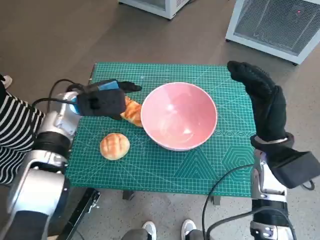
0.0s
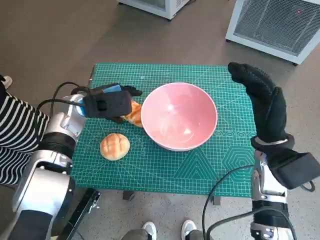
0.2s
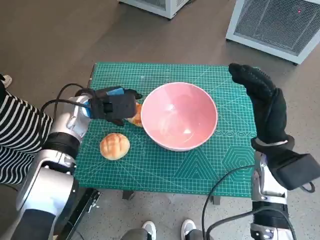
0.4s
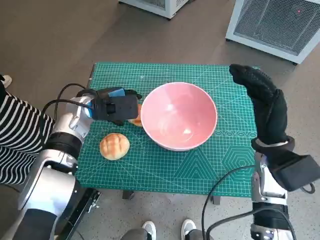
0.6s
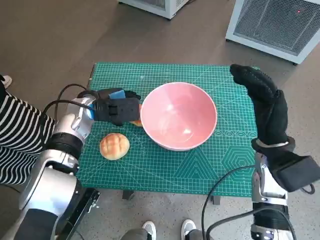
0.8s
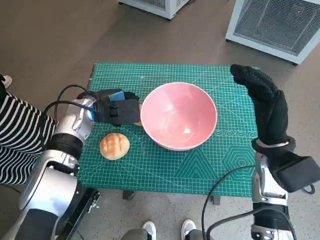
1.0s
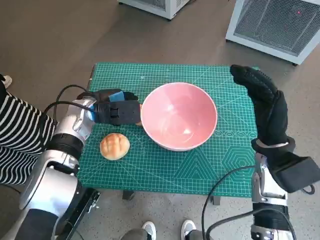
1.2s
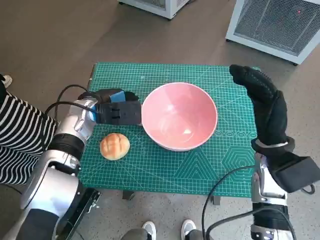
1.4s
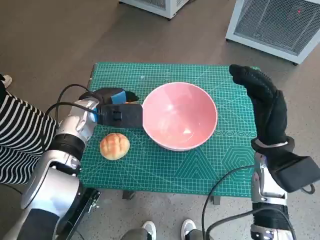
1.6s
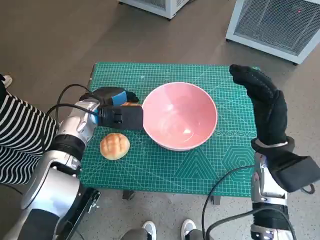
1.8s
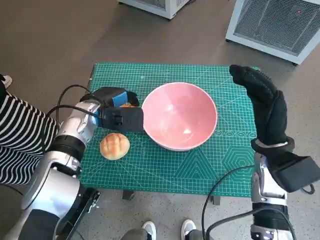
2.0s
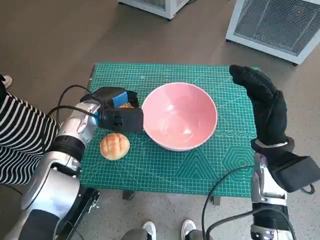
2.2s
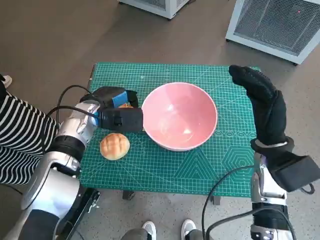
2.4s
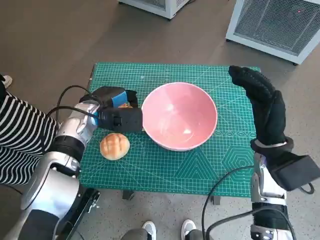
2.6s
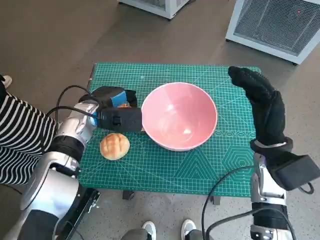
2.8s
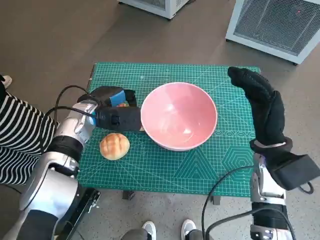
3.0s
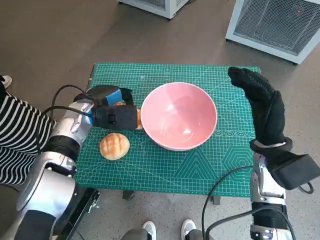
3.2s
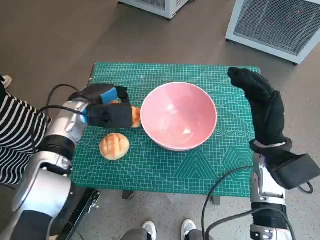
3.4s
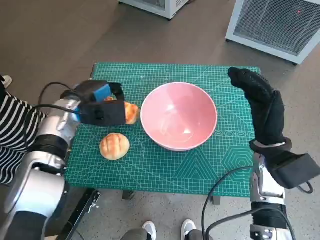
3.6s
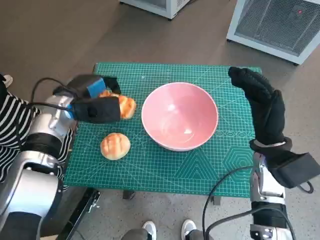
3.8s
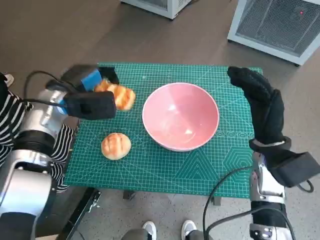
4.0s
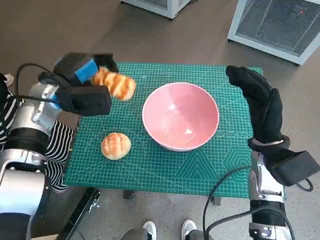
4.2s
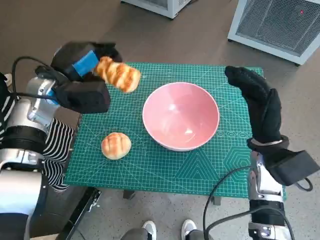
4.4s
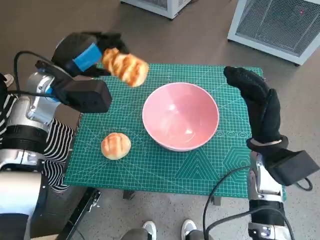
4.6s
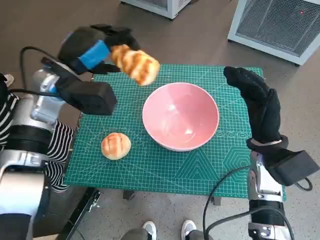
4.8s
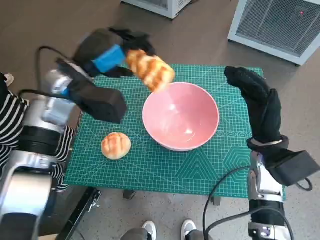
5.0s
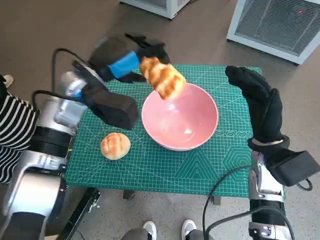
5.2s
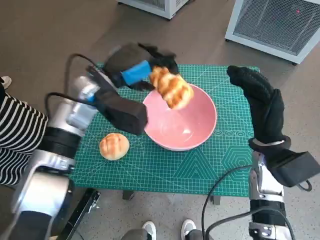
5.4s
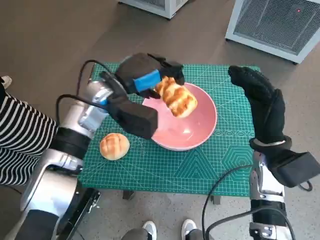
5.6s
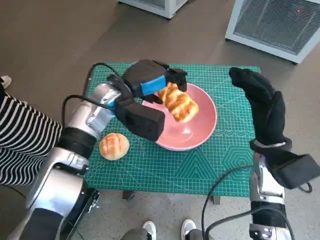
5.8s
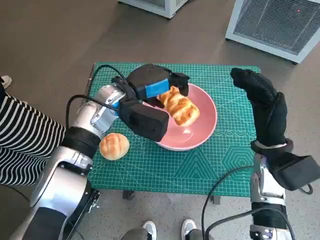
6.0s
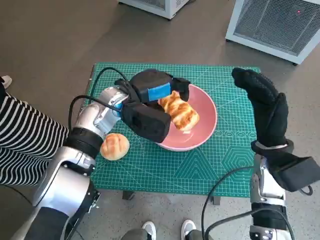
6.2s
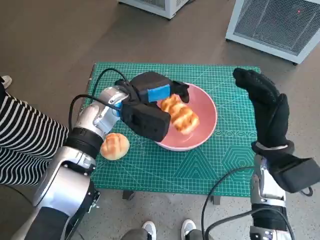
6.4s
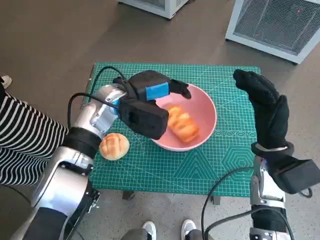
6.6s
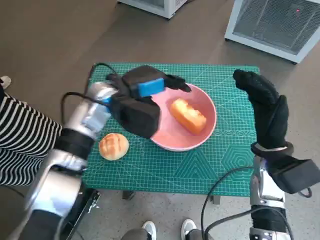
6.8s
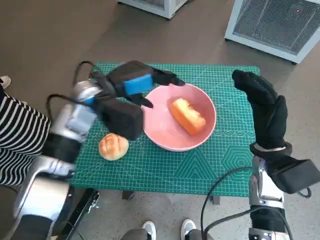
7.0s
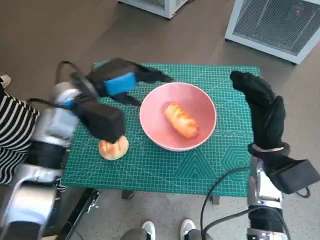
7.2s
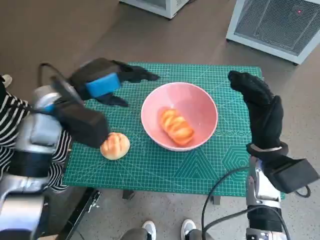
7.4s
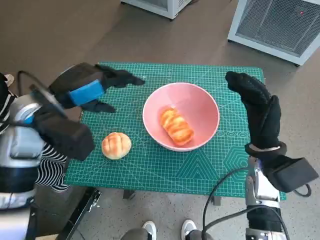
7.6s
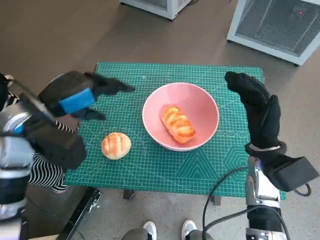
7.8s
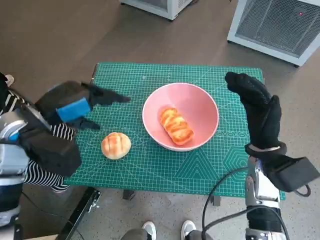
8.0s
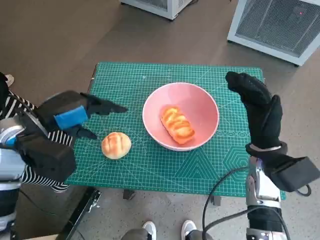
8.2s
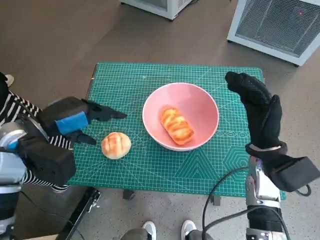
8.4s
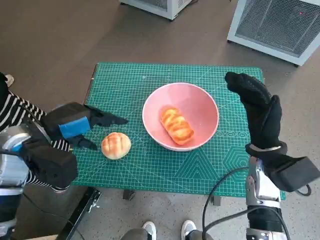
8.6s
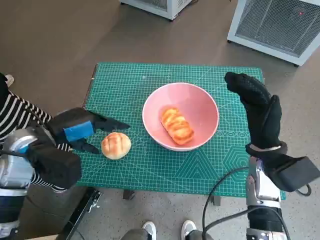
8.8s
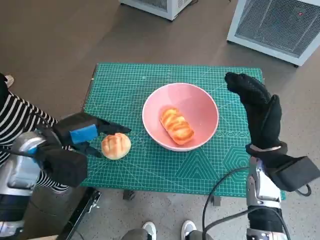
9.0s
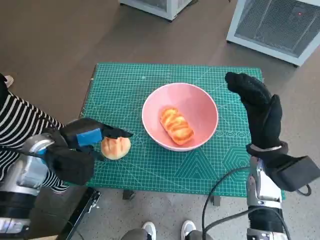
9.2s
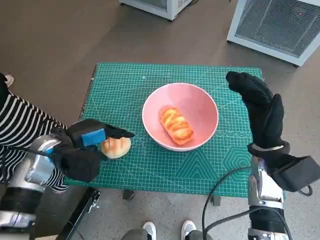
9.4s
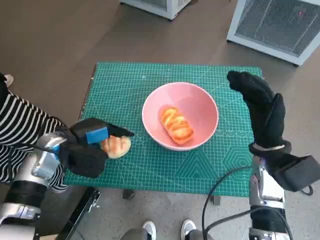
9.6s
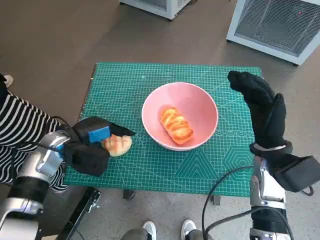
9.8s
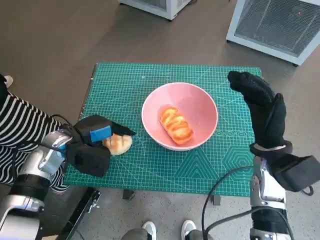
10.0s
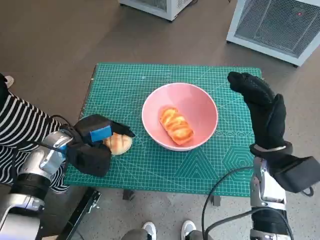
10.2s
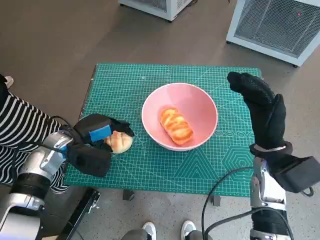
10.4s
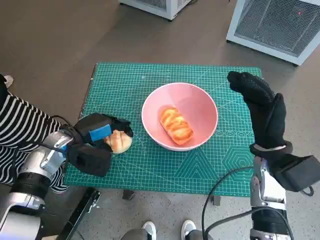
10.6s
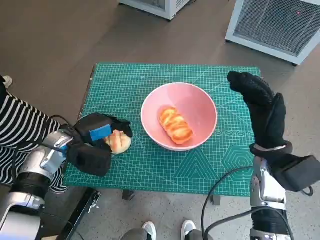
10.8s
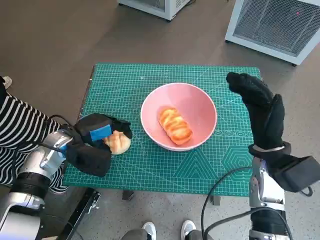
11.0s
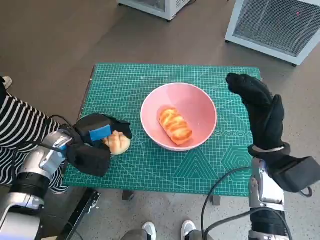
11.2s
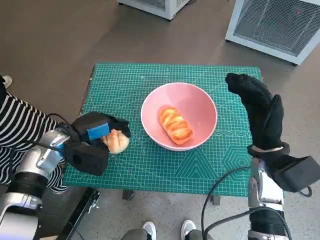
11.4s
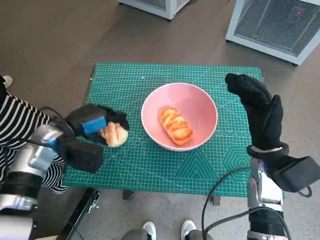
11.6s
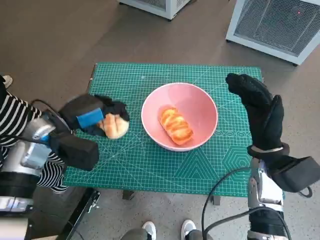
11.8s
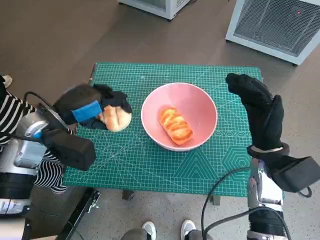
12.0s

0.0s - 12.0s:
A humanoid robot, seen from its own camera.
Task of the whole recording: Push the bowl into the center of the table and put the bread into the bowl.
Step, 0.0s - 2.0s: Grasp the long bread with left hand.
Step, 2.2s - 6.8s: Place the long bread in pink bowl with left hand.
Step, 7.0s - 10.4s: Grasp the round bread with left hand.
0.0s - 3.0s: The hands make only small movements.
3.0s - 4.4s: The left hand travels upward by about 10 cm.
4.4s - 6.0s: The left hand heads to the right, covering about 10 cm.
6.0s - 7.6s: The left hand goes roughly 10 cm to the left and backward.
7.6s - 9.0s: The left hand moves downward, some 5 cm.
9.0s - 10.4s: The left hand moves downward, roughly 5 cm.
10.4s - 12.0s: The left hand travels upward by about 10 cm.

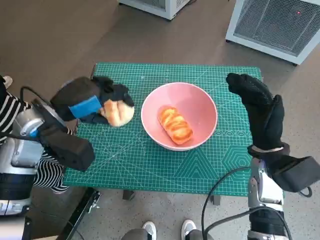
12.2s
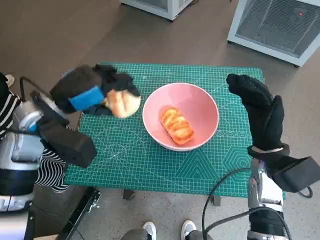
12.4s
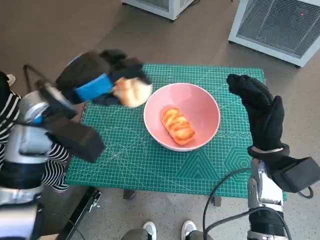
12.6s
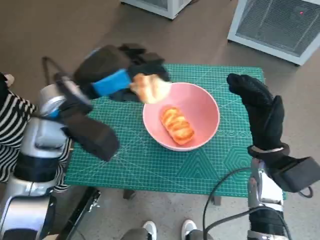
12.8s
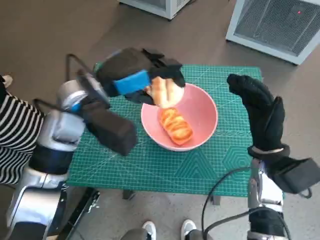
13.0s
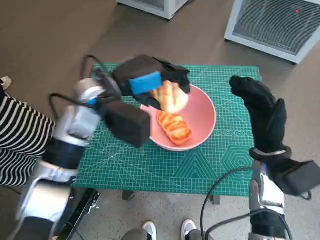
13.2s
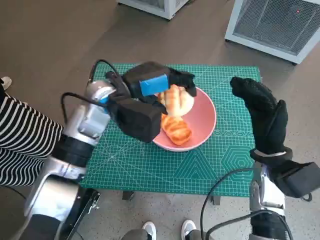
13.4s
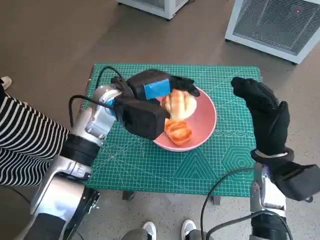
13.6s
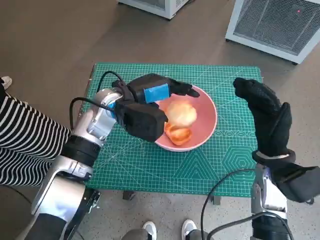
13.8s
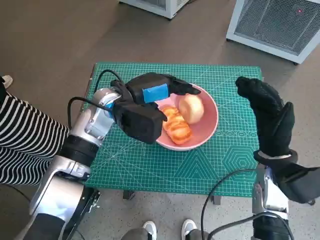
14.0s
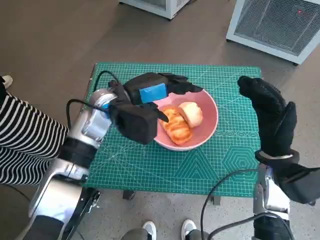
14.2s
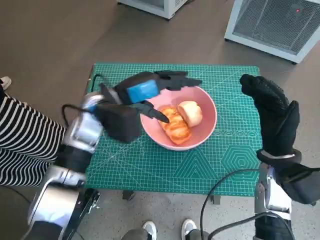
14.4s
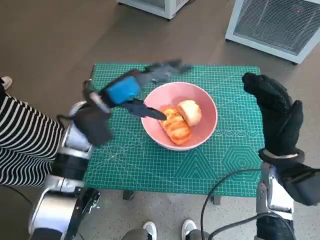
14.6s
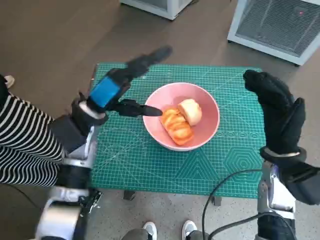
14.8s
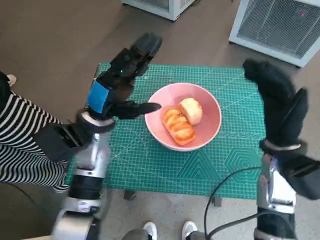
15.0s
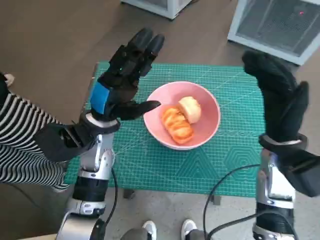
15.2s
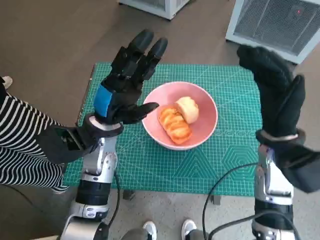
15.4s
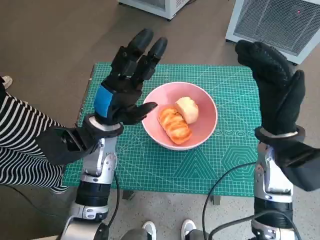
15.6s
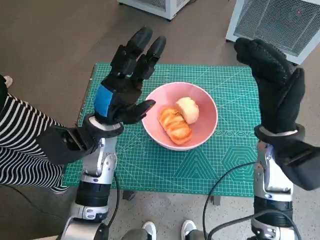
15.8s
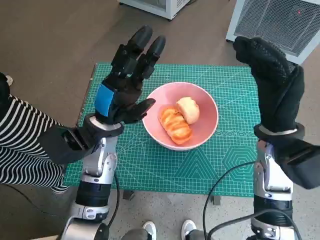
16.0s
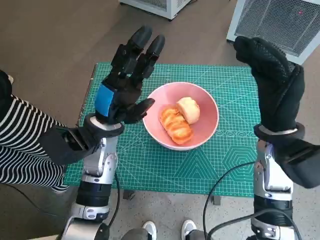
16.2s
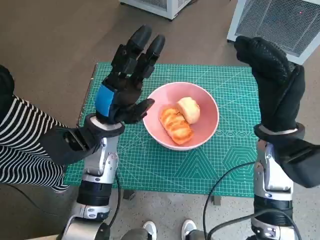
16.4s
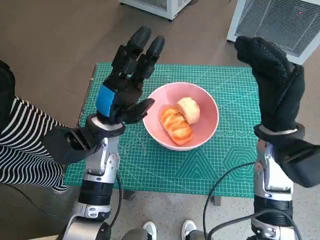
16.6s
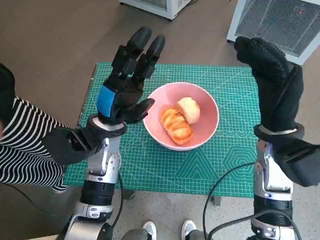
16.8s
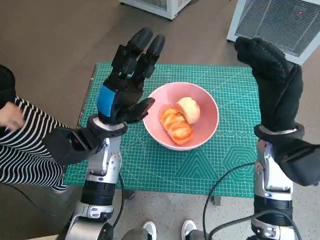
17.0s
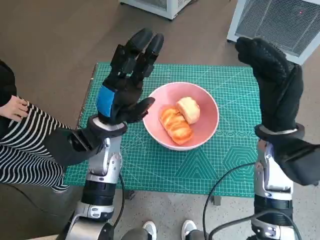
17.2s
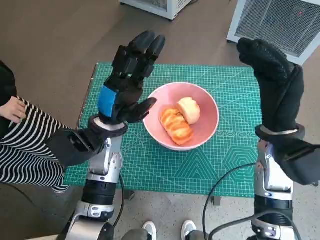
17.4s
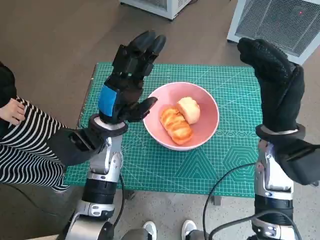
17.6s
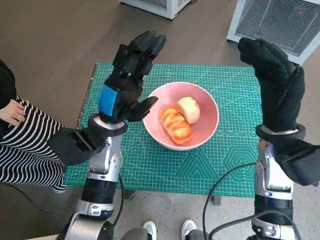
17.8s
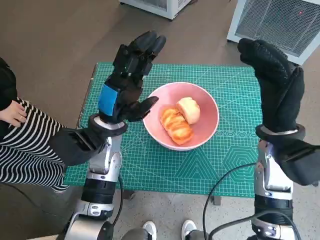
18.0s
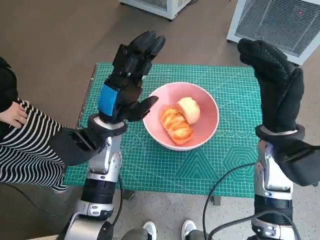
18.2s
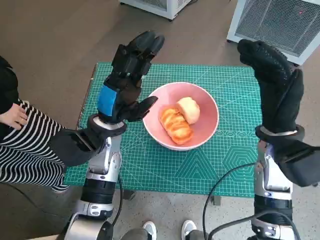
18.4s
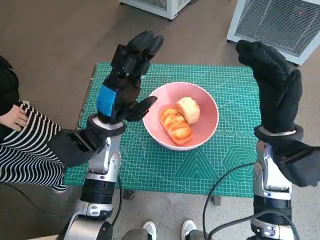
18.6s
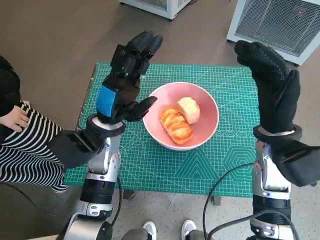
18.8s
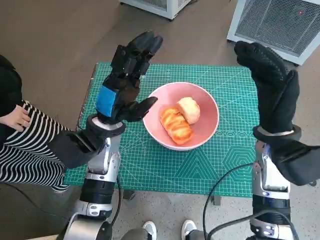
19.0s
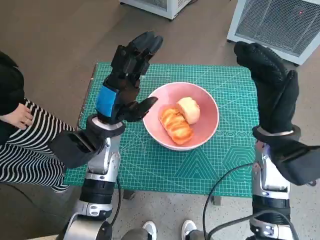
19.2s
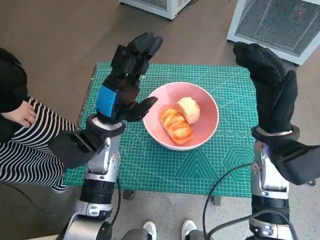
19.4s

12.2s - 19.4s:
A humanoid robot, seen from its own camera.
Task of the whole recording: Push the bowl into the center of the table and put the bread into the bowl.
Step, 12.2s - 14.4s: Place the round bread in pink bowl with left hand.
12.2s - 13.6s: The left hand moves to the right and forward, some 15 cm.
13.6s - 15.0s: The left hand shifts by roughly 5 cm.
16.6s - 18.0s: Both hands stay about where they are.
18.0s - 19.4s: Neither hand changes place.

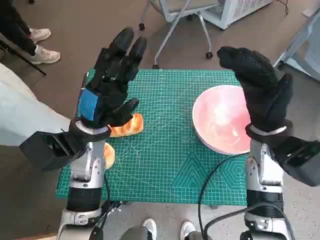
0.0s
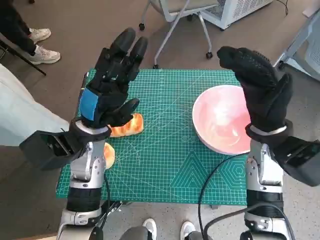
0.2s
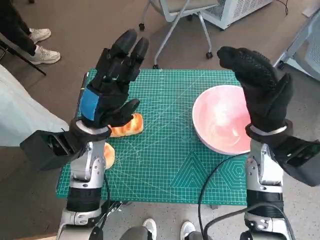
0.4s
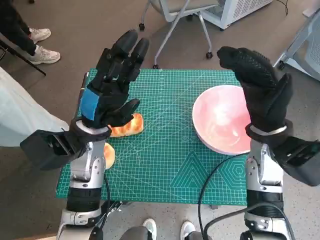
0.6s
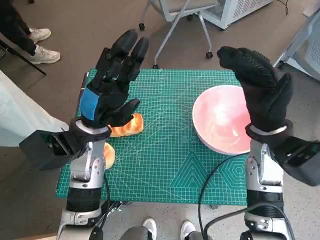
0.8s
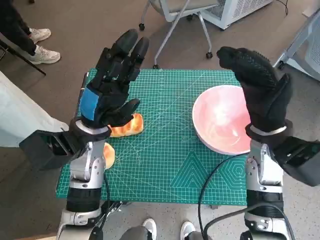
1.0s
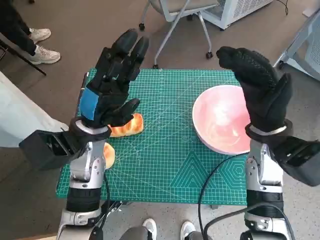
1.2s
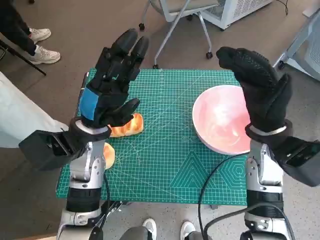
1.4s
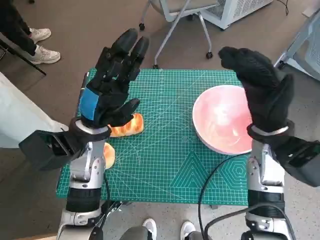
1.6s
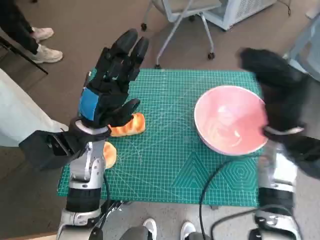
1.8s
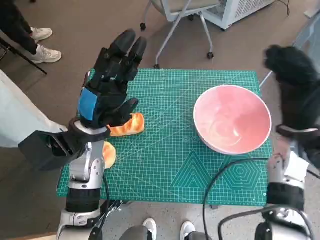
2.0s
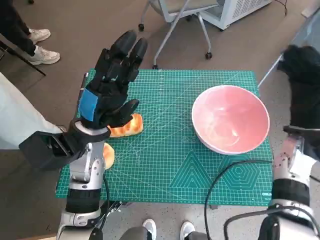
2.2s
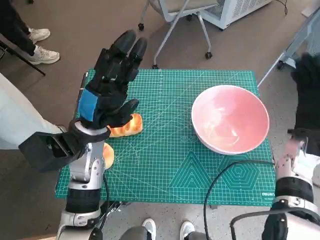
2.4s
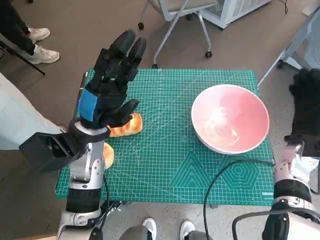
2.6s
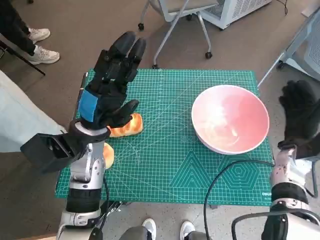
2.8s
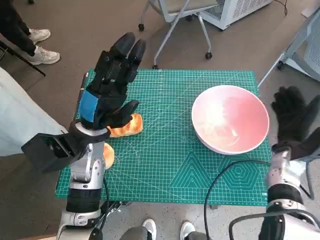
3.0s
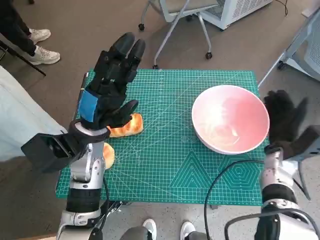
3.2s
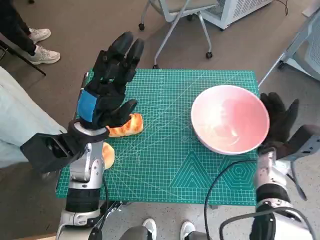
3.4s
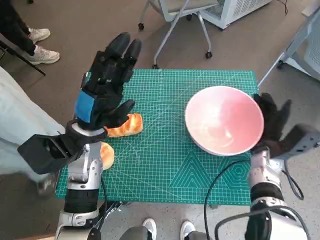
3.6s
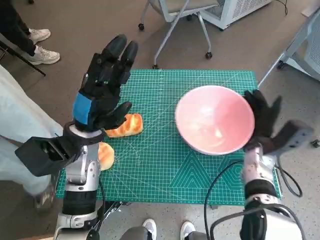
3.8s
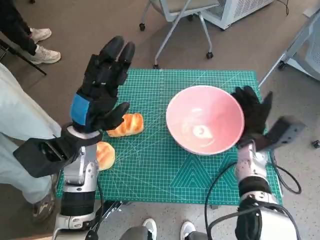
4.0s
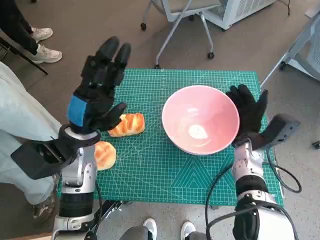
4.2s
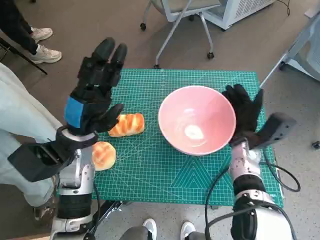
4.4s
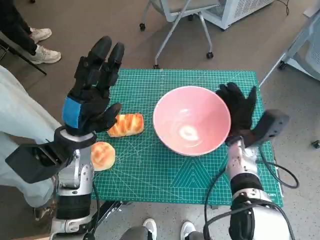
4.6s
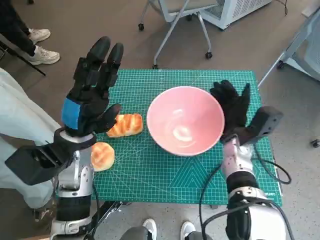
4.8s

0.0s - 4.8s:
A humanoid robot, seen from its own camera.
Task of the whole recording: Push the bowl into the center of the table and put the bread into the bowl.
1.6s - 3.2s: The right hand is displaced downward and to the right by roughly 15 cm.
3.2s - 4.8s: The right hand travels to the left by approximately 10 cm.
